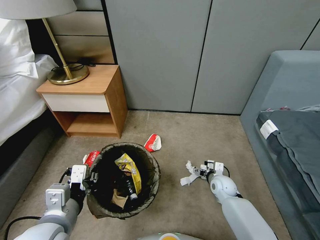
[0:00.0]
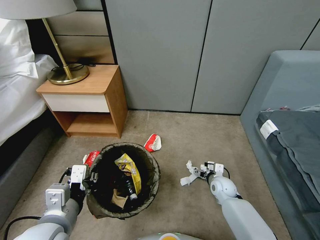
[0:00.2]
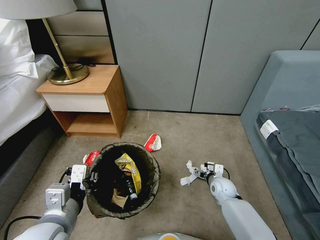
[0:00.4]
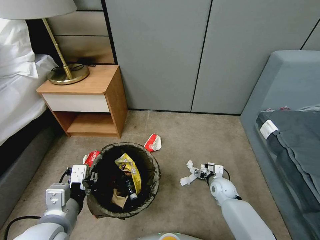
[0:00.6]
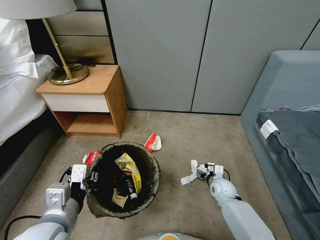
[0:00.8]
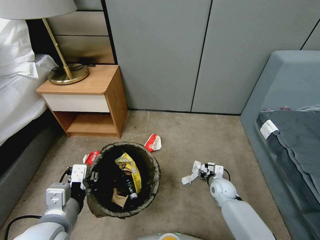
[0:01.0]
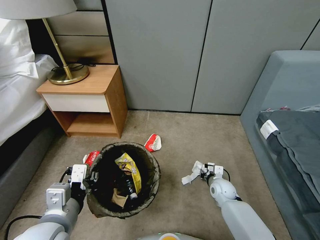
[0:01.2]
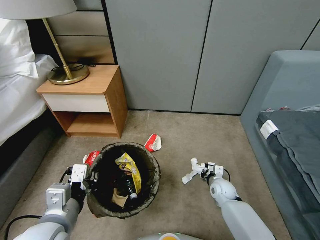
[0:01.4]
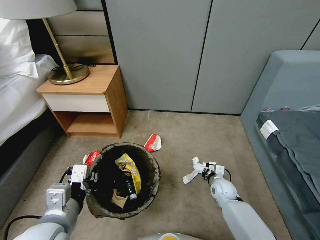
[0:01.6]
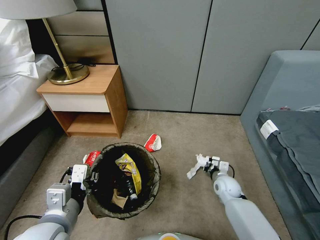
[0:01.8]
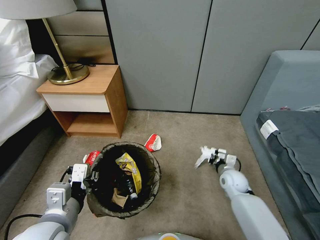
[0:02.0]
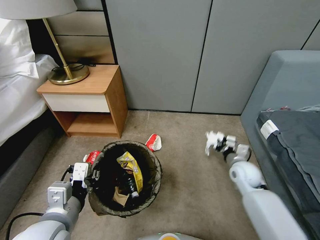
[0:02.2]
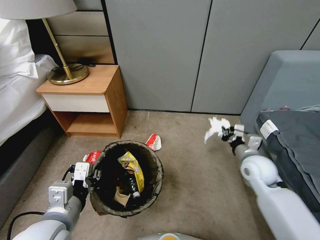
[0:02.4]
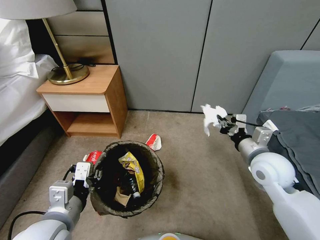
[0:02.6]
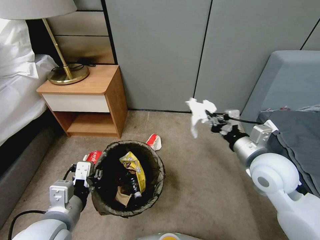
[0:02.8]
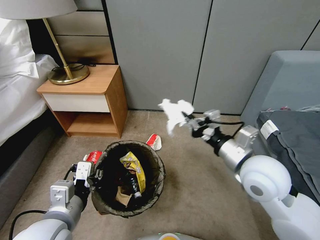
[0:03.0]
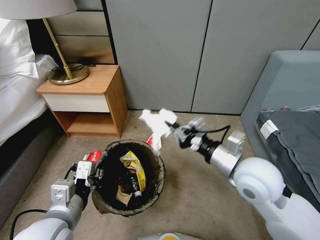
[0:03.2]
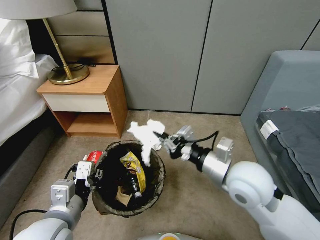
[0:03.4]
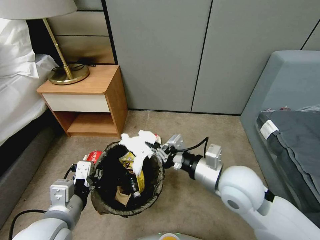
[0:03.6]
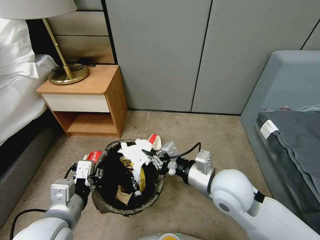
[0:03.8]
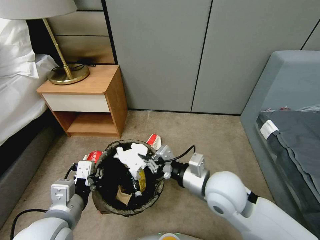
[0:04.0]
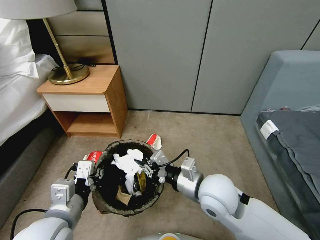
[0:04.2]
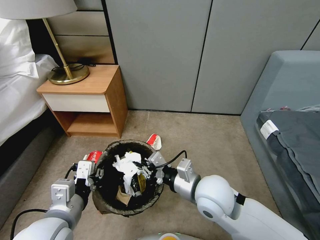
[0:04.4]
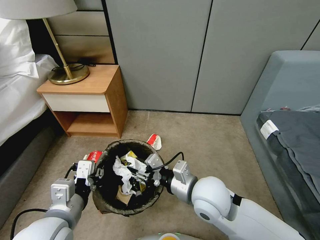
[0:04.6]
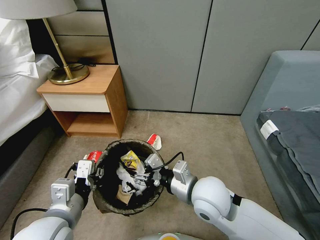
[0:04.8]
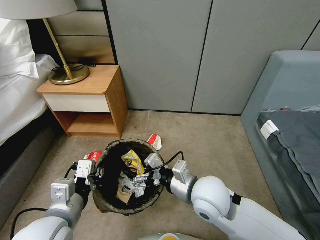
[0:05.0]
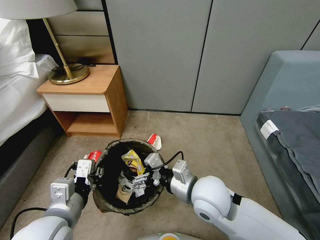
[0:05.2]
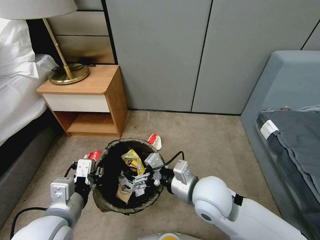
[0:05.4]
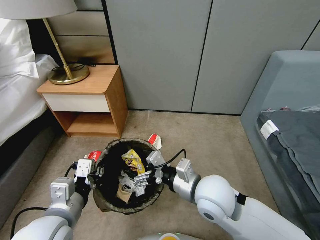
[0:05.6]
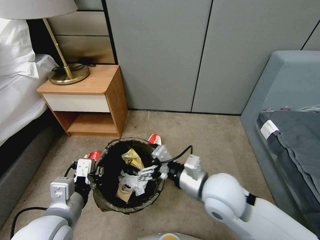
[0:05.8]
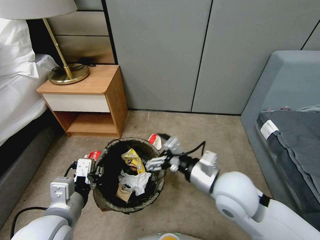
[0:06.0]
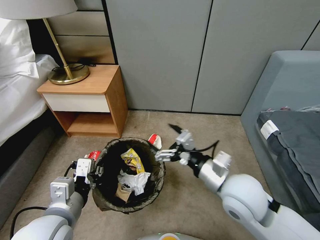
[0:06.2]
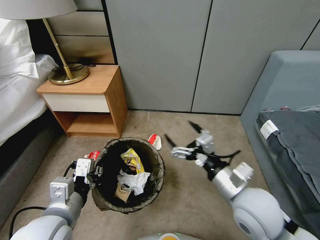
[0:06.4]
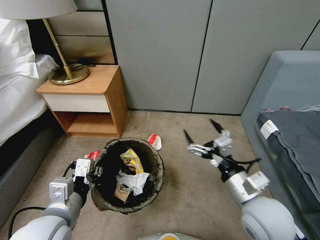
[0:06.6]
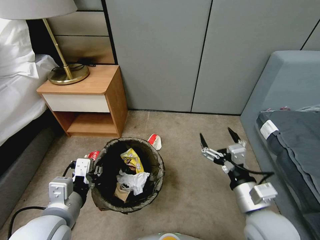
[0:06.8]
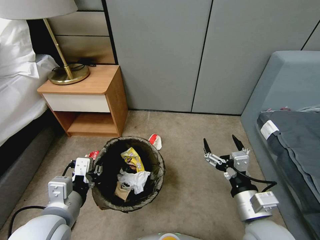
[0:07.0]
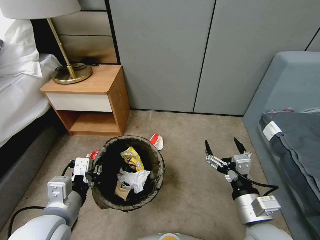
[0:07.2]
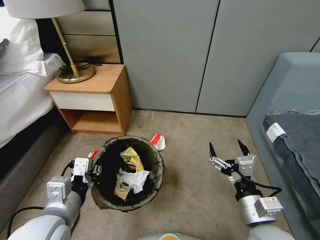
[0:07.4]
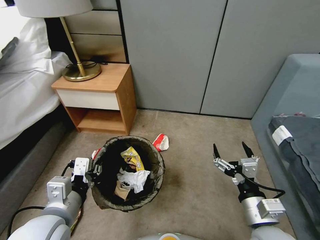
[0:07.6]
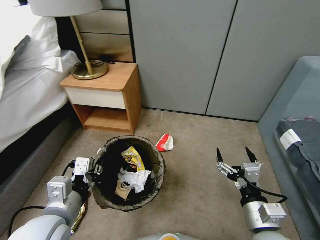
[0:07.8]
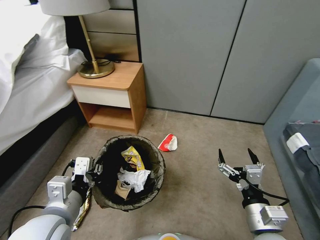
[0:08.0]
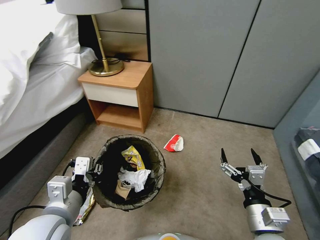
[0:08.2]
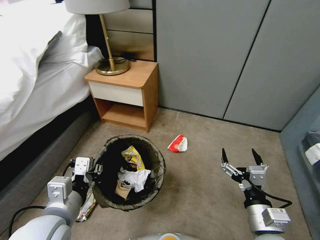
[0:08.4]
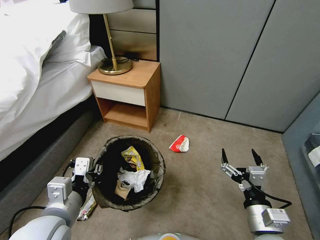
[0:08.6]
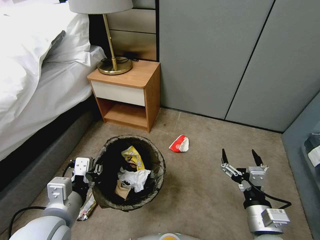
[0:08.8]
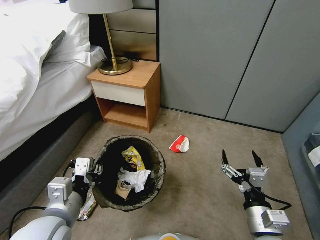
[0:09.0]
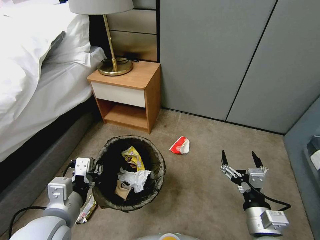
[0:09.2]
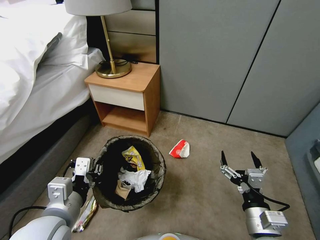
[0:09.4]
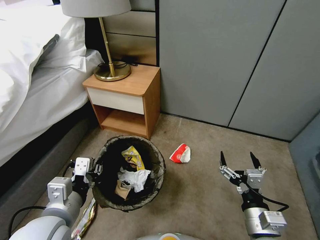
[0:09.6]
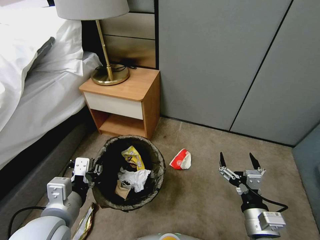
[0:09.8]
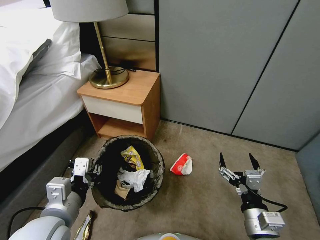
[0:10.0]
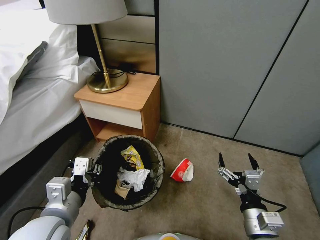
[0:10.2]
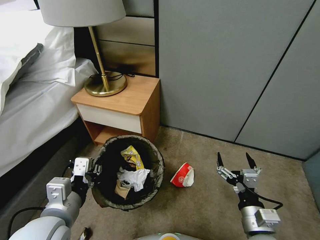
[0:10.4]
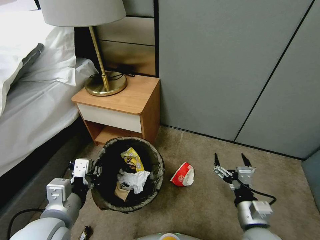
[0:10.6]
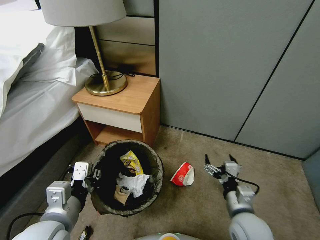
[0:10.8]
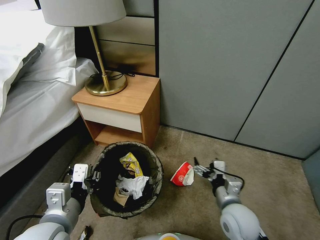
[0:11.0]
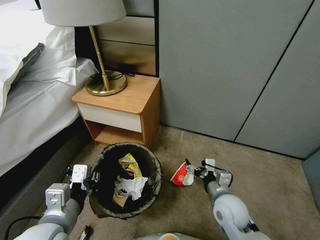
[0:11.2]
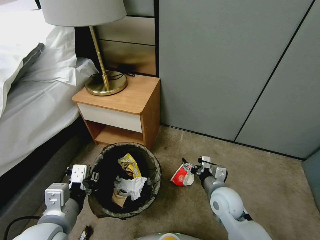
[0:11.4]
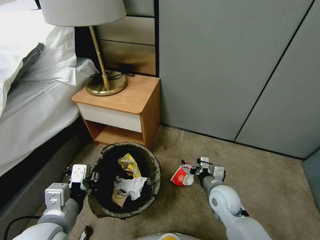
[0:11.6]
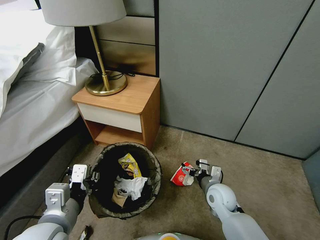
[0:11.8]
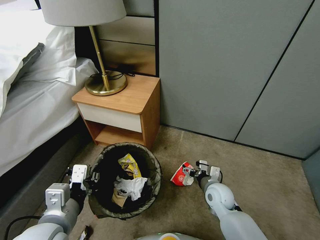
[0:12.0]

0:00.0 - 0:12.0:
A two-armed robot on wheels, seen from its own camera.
Task of the whole recording: Pick up the trash bin, then pick up the garbage from the floor and place it into the trash bin.
0:00.0 - 0:01.6: The right gripper closes its fingers.
0:01.6 - 0:03.0: The right gripper shifts roughly 35 cm upward.
0:03.0 - 0:04.4: The right gripper moves to the left and downward, about 15 cm.
0:04.4 - 0:06.0: The right gripper opens up.
0:06.0 - 0:07.6: The right gripper goes about 15 cm to the right, backward and downward.
0:10.4 - 0:12.0: The right gripper shifts roughly 20 cm forward and downward.

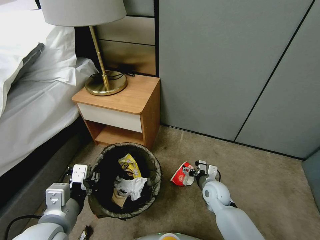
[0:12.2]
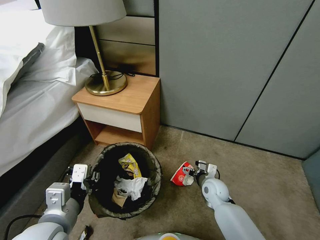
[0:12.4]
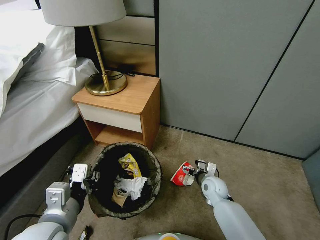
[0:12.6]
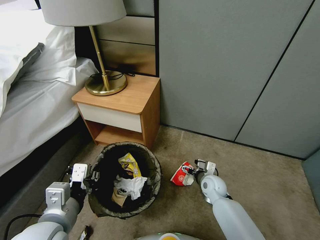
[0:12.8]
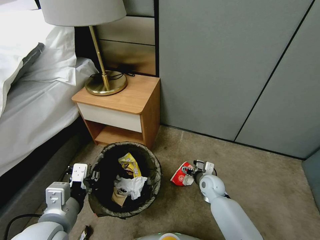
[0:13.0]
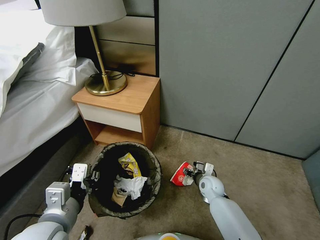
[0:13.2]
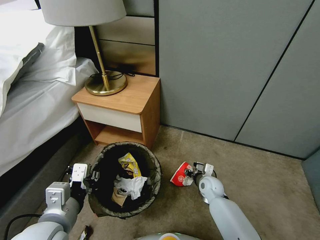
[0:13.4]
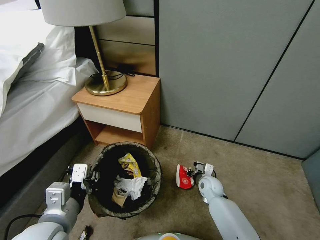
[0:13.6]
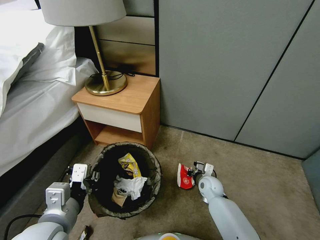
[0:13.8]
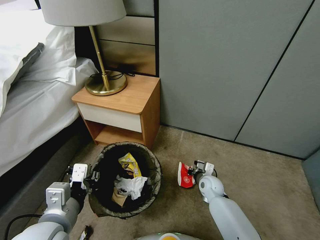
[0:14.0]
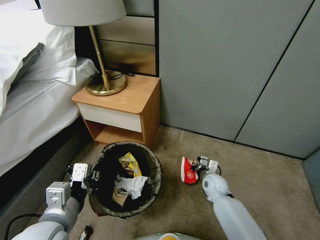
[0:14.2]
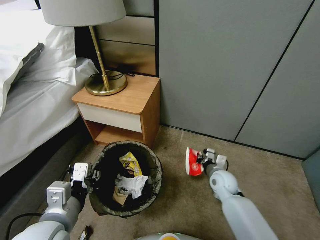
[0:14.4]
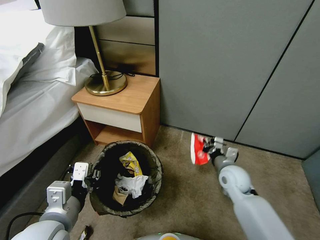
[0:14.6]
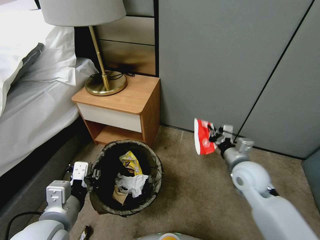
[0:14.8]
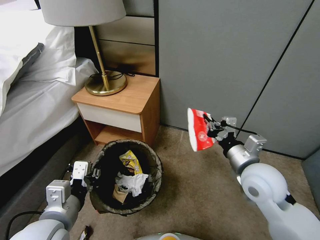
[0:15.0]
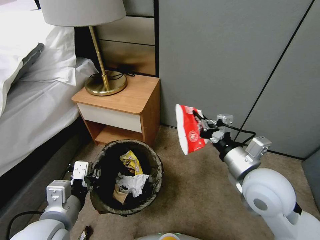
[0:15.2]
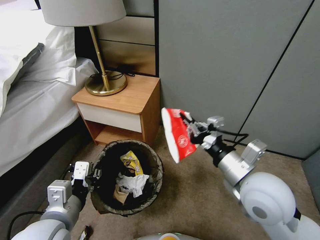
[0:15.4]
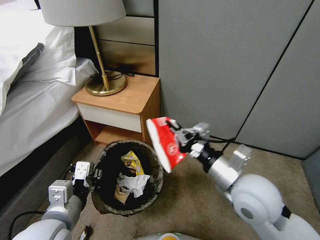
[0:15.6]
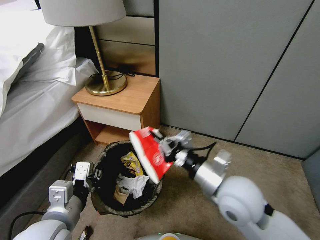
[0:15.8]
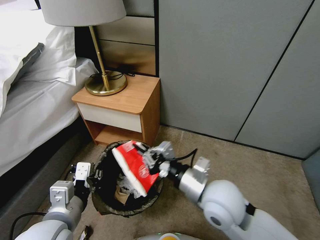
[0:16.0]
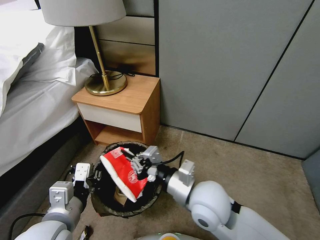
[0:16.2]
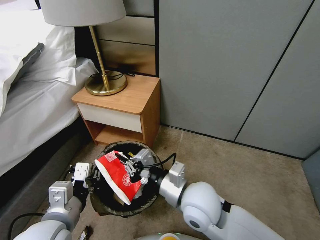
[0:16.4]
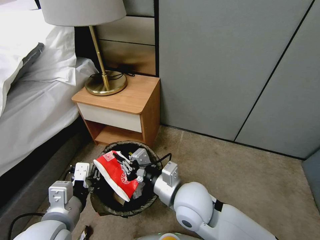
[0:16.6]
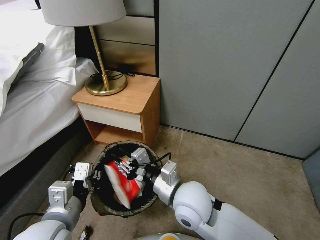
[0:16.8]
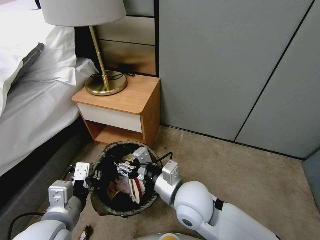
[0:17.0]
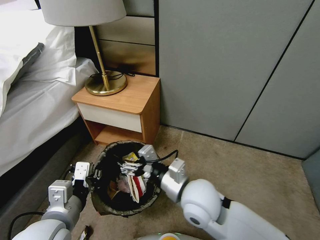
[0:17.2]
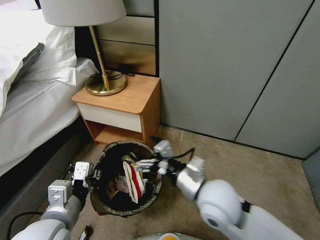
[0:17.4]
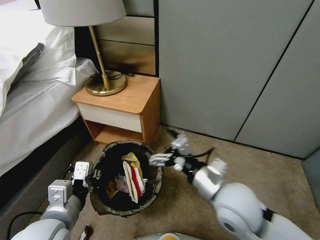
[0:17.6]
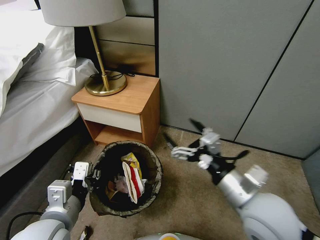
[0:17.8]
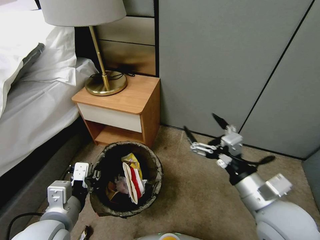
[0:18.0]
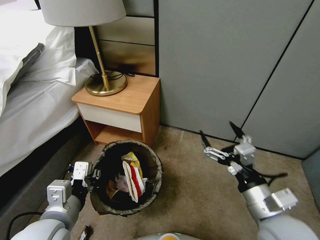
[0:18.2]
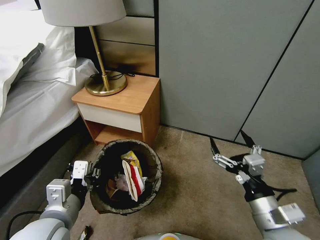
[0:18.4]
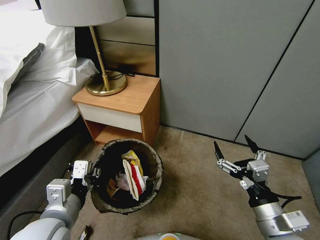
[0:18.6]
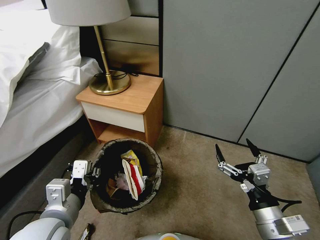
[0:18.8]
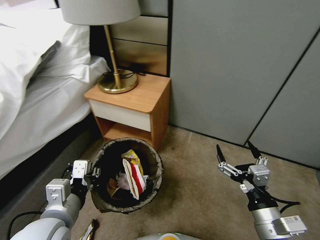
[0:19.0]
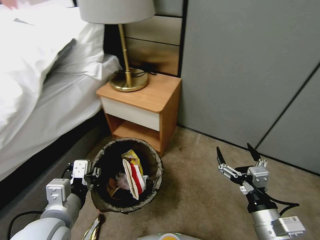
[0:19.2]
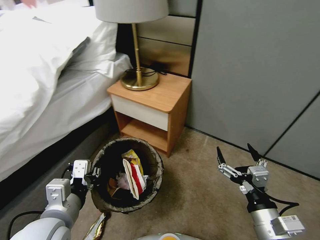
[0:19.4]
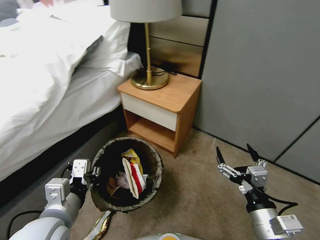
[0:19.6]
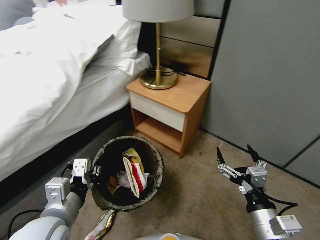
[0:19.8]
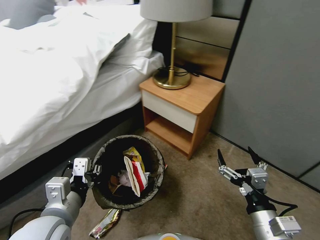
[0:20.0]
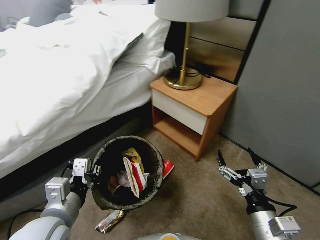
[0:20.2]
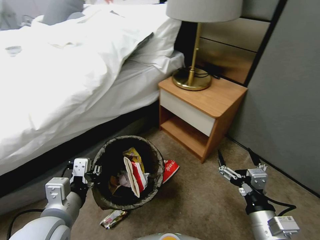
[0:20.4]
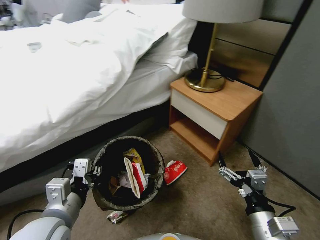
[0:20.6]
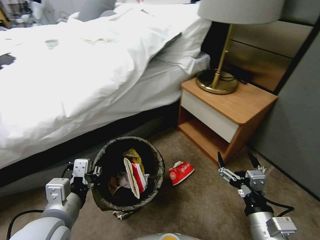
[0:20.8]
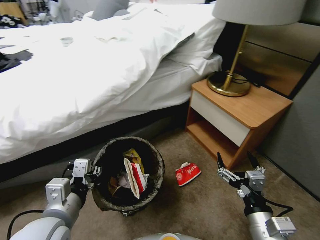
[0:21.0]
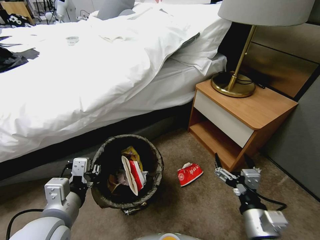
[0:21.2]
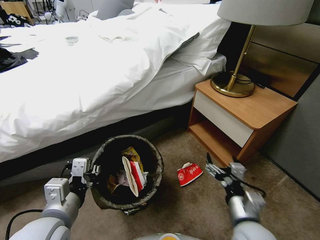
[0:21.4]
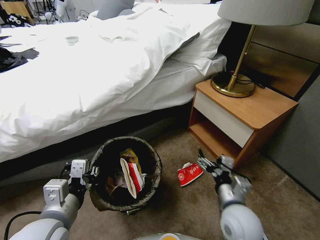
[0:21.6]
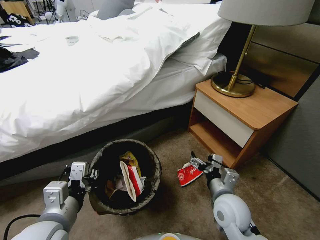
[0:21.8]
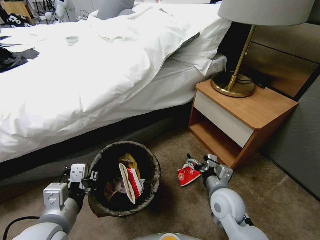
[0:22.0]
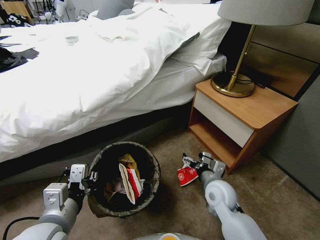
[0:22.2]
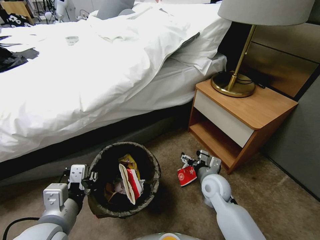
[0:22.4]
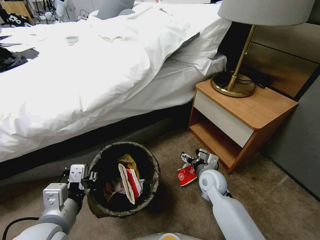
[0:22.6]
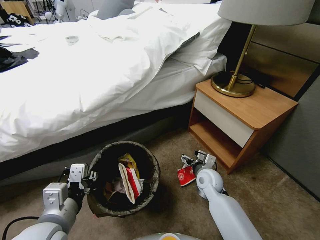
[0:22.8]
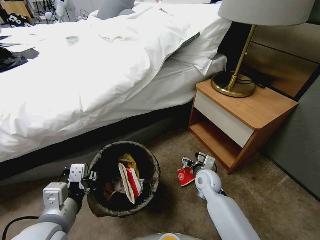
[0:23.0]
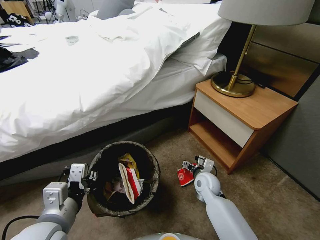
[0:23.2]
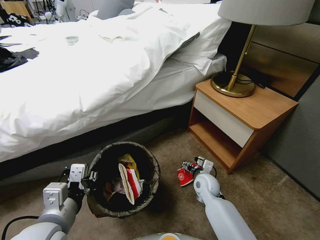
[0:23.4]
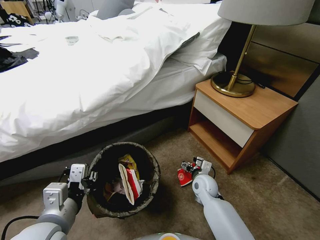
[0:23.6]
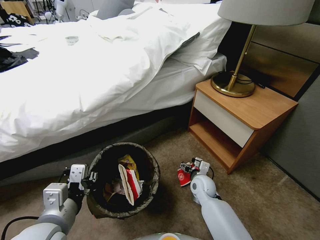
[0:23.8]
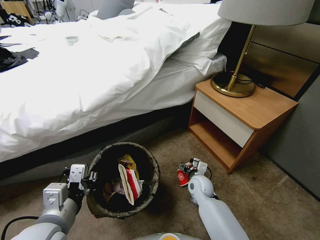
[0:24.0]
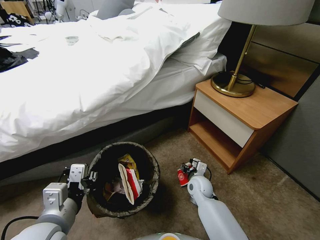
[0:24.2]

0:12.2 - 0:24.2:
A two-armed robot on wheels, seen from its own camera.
Task of the whole recording: Pick up the trash bin, then pick up the garbage from the floor and place it into the trash bin.
0:12.2 - 0:13.8: The right gripper ends up roughly 5 cm from where it was, and closes its fingers.
0:13.8 - 0:15.2: The right gripper is displaced upward by some 35 cm.
0:15.2 - 0:16.6: The right gripper is displaced to the left and downward by some 15 cm.
0:16.6 - 0:18.2: The right gripper moves to the right, approximately 20 cm, and opens its fingers.
0:18.2 - 0:19.8: The right gripper shifts roughly 5 cm downward.
0:21.2 - 0:22.6: The right gripper moves forward and downward, some 25 cm.
0:22.6 - 0:24.2: The right gripper shifts about 10 cm downward.
